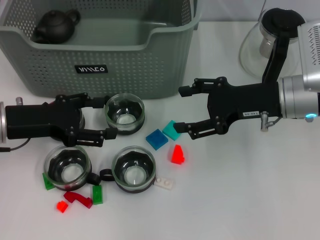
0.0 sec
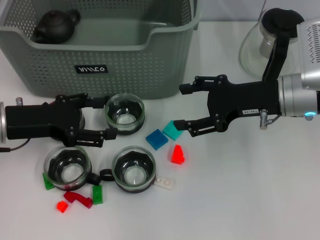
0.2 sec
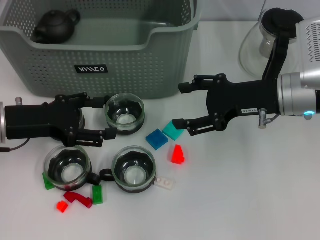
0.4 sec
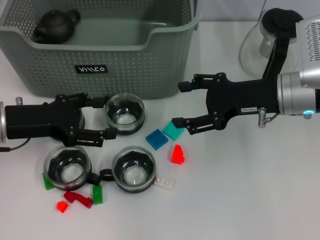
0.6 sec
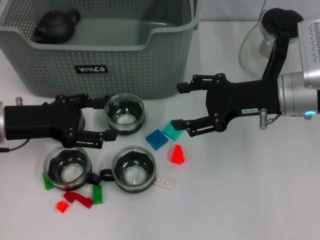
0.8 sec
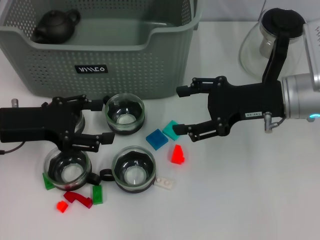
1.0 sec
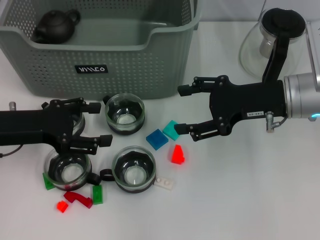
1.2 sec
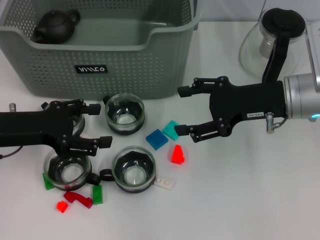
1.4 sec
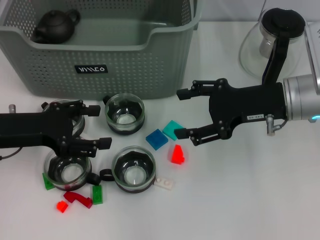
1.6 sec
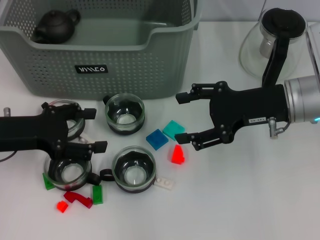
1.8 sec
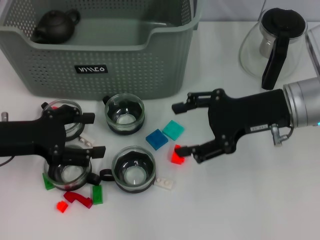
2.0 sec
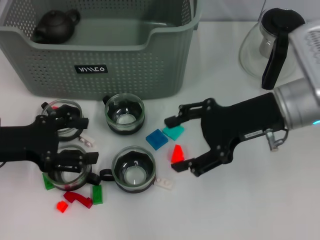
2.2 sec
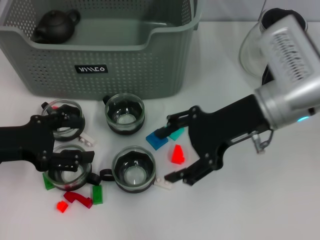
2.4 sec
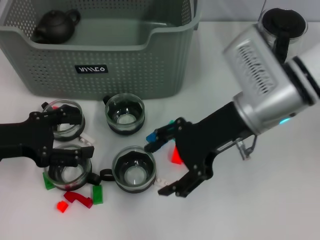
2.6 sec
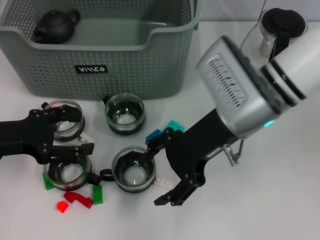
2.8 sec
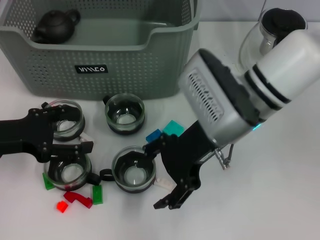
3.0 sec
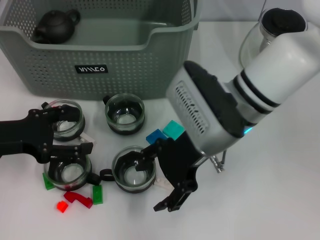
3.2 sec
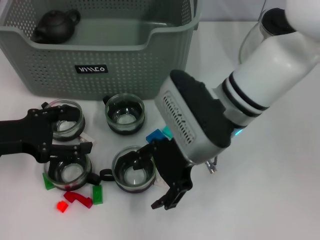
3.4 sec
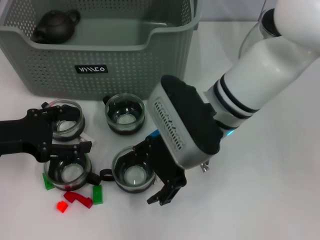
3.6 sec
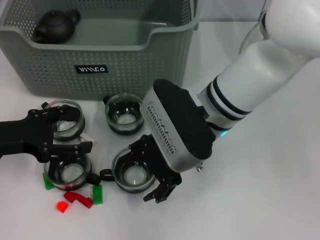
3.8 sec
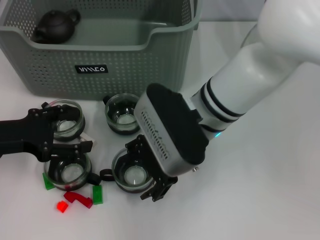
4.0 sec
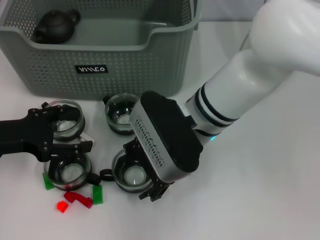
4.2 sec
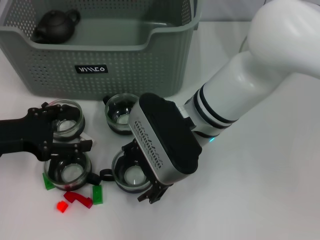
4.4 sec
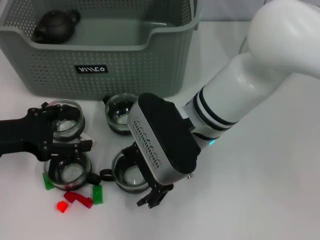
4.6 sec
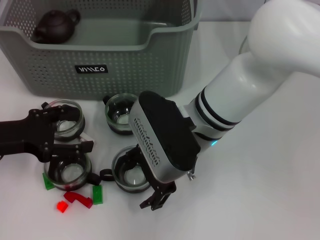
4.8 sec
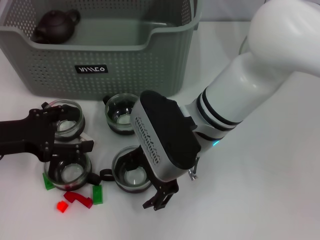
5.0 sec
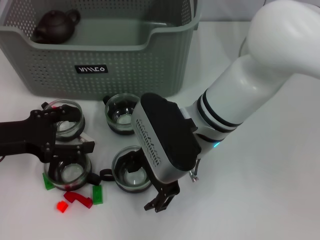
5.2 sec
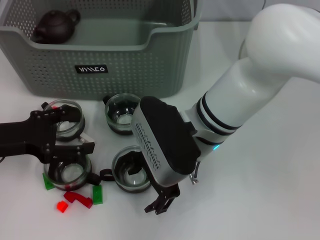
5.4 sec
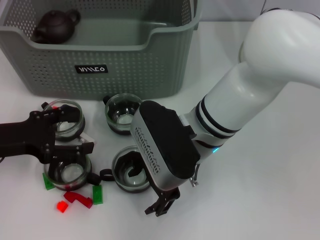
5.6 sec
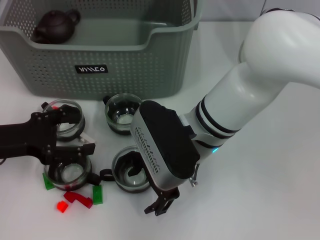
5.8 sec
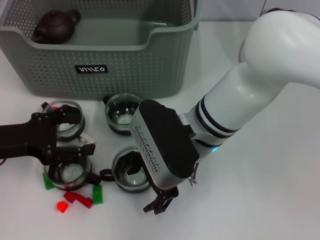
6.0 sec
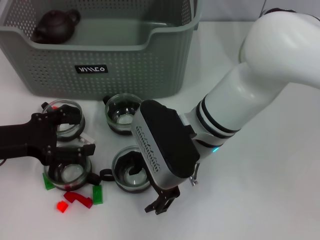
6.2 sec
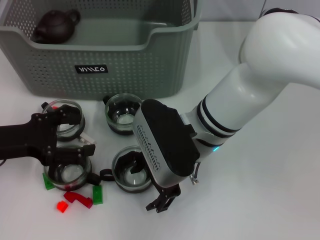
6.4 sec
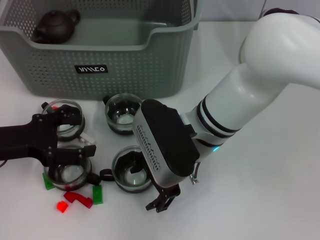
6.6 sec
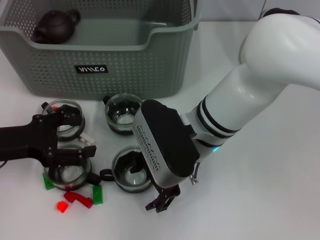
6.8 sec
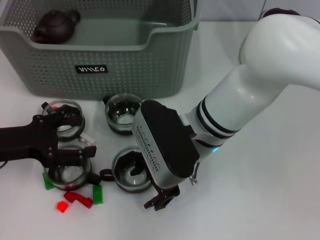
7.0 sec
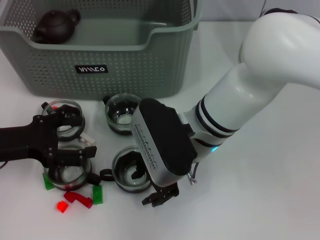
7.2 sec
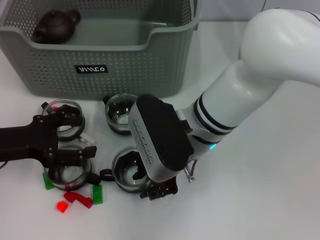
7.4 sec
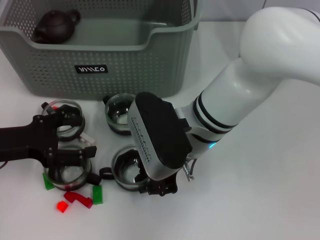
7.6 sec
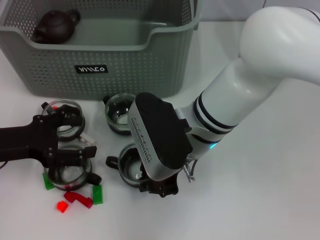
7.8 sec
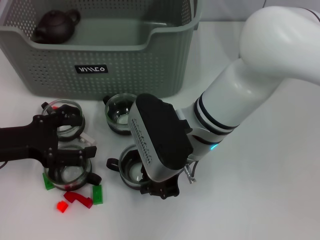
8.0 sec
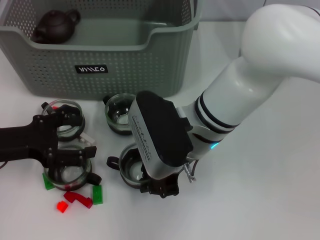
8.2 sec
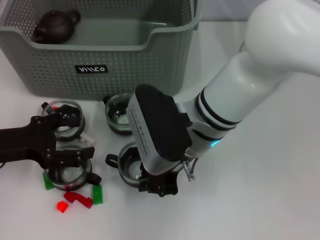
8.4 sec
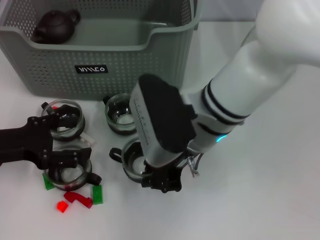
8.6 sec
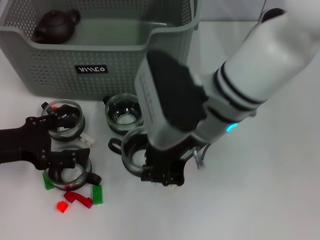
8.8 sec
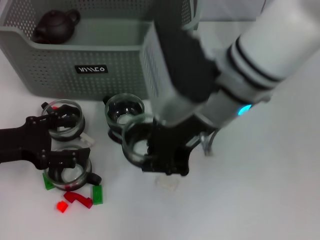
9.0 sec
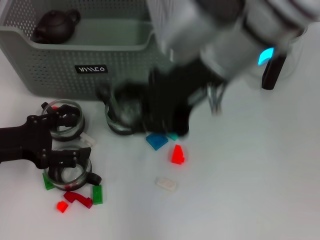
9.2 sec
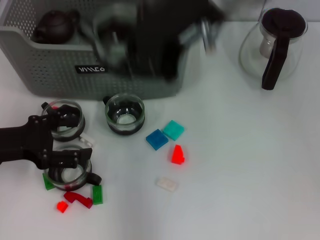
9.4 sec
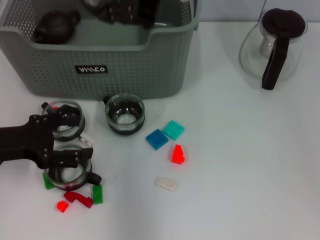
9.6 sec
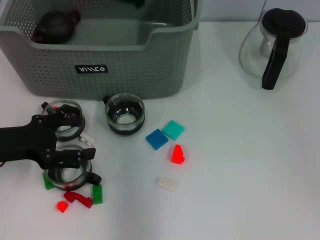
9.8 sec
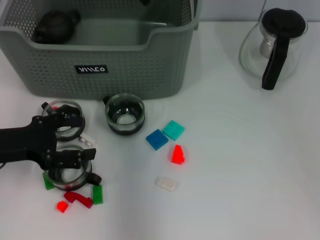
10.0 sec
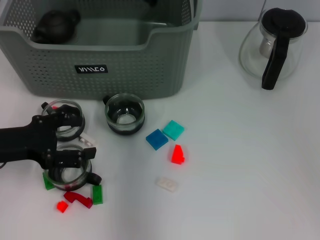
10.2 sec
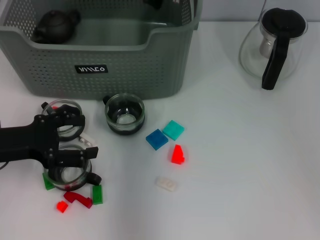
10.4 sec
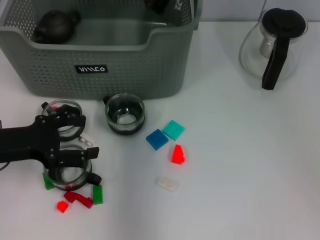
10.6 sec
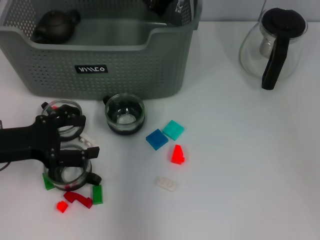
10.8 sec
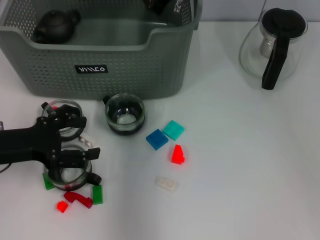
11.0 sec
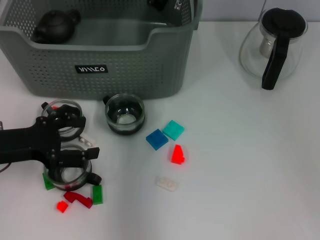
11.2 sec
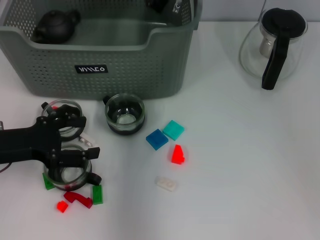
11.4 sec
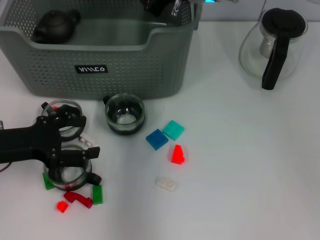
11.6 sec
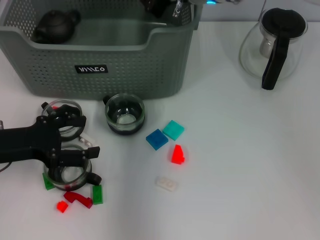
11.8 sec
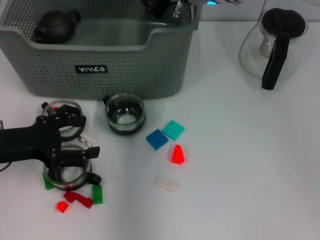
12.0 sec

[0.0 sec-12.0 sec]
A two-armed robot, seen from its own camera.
Task of the whole recording: pick up the teacup on the table and place it into the storage bin, pick up the block on the table and place it into the storage bin.
Step, 0.0 sec to 7.6 sec: Grasp the cup with right gripper.
0.0 sec to 1.6 sec: Both grippers stay put.
1.6 sec to 3.0 sec: The right gripper shifts some 10 cm to the left.
3.0 sec to 4.4 sec: The right gripper is displaced to the left by approximately 5 cm.
4.4 sec to 6.0 sec: There are only small adjustments of the grippers.
6.0 sec to 7.6 sec: The right gripper closes.
7.6 sec to 9.0 sec: The right gripper is displaced upward by about 10 cm.
9.0 sec to 10.4 sec: The right gripper shifts roughly 15 cm forward.
10.4 sec to 12.0 sec: The grippers stay close to where they were, moving slightly.

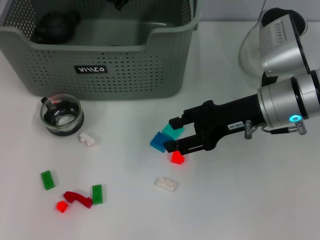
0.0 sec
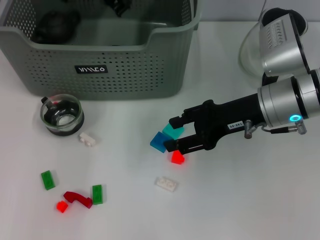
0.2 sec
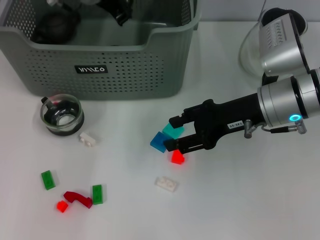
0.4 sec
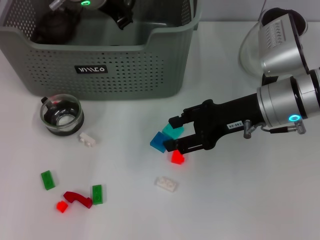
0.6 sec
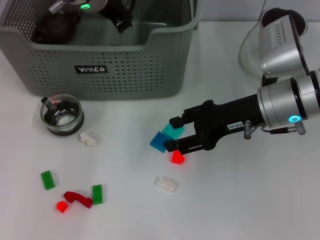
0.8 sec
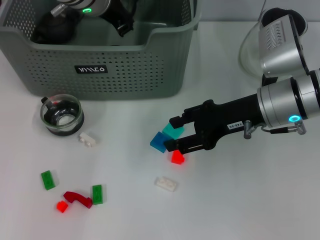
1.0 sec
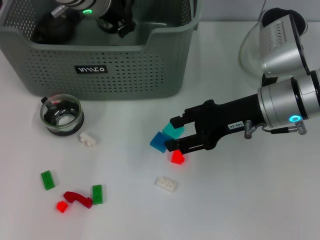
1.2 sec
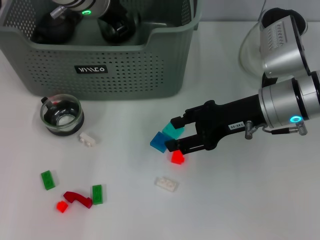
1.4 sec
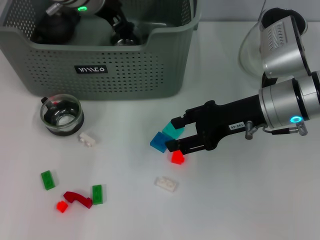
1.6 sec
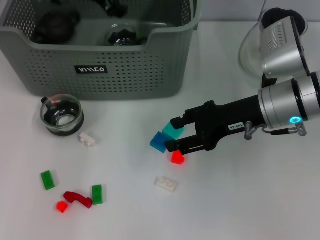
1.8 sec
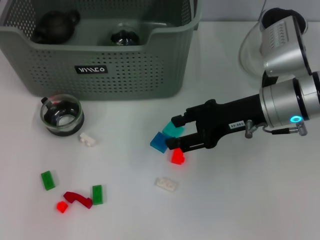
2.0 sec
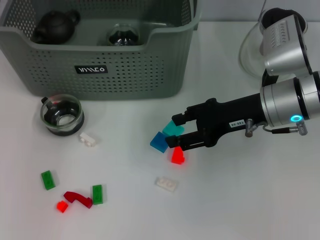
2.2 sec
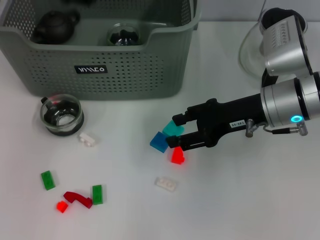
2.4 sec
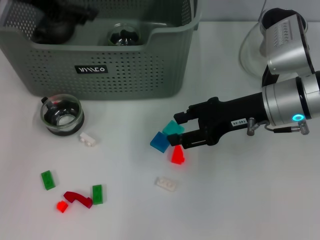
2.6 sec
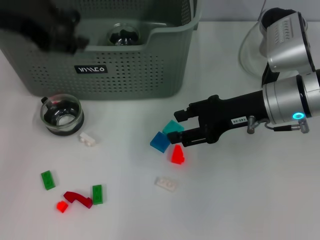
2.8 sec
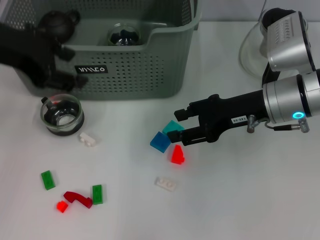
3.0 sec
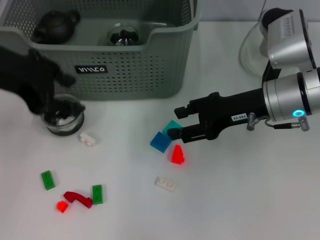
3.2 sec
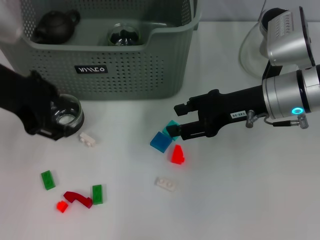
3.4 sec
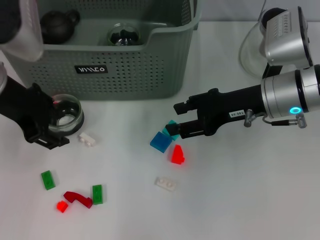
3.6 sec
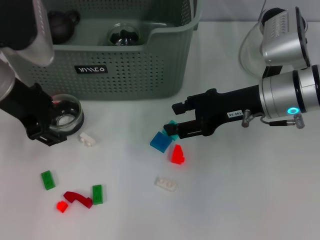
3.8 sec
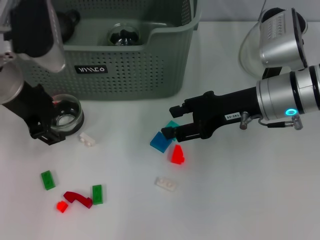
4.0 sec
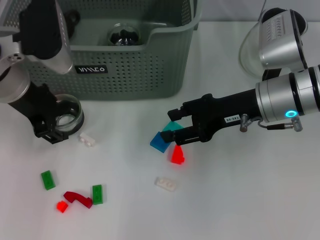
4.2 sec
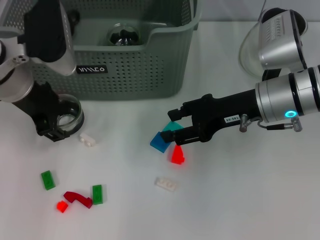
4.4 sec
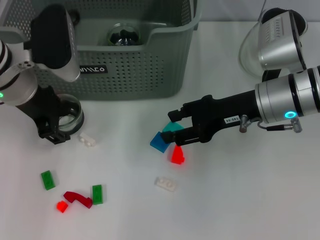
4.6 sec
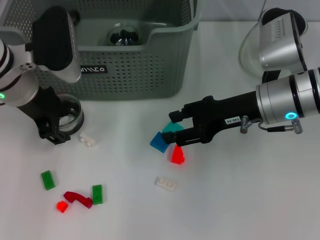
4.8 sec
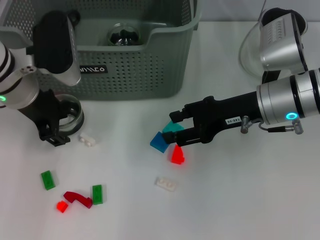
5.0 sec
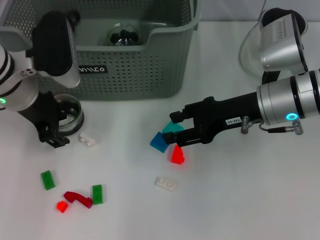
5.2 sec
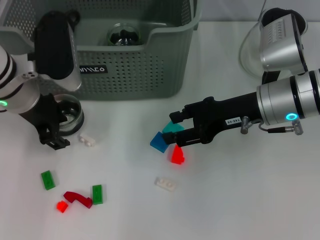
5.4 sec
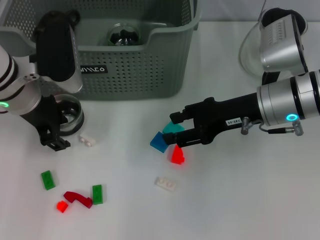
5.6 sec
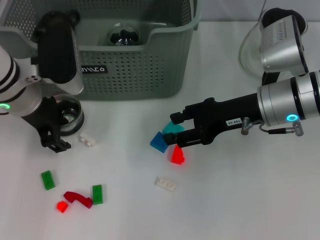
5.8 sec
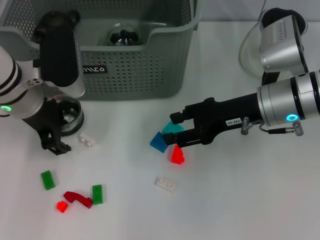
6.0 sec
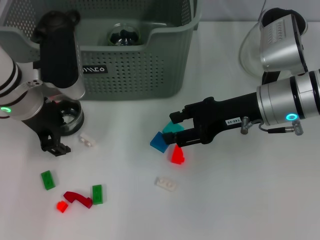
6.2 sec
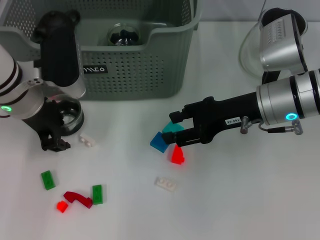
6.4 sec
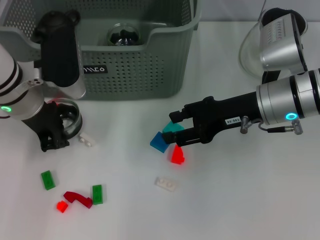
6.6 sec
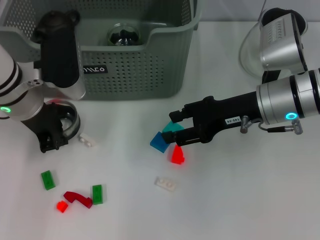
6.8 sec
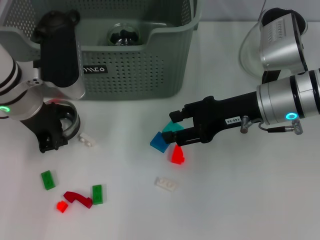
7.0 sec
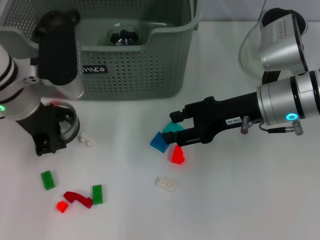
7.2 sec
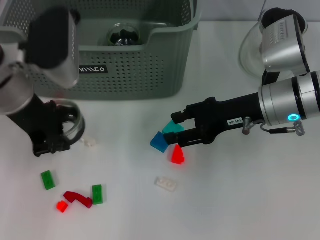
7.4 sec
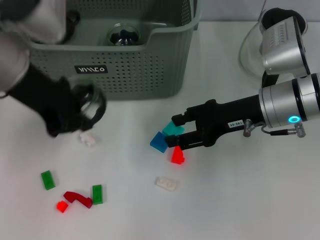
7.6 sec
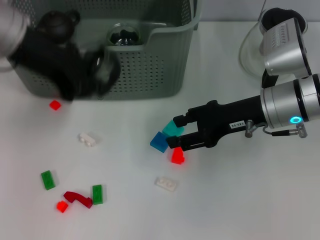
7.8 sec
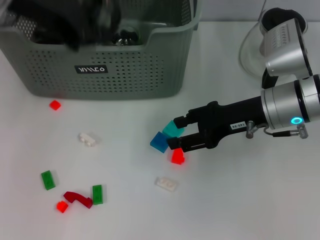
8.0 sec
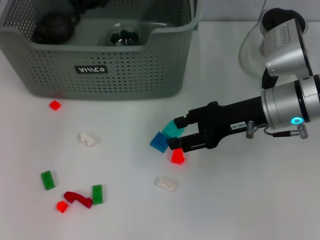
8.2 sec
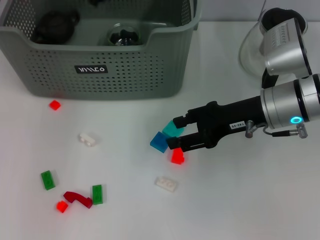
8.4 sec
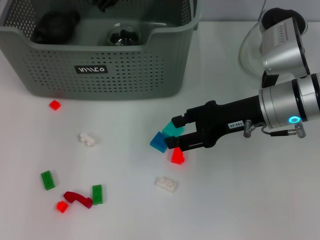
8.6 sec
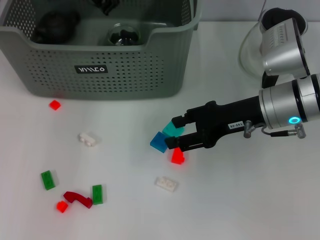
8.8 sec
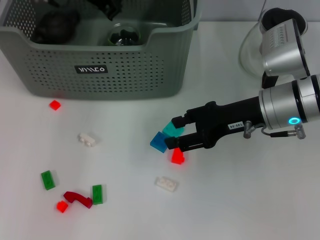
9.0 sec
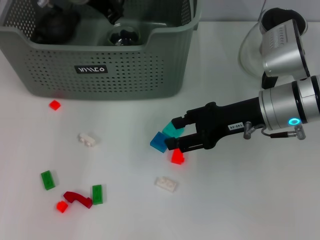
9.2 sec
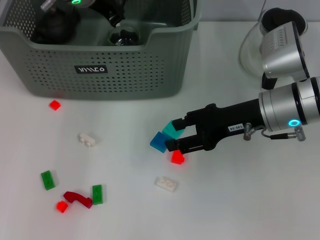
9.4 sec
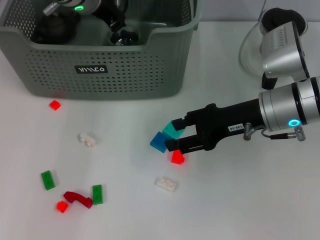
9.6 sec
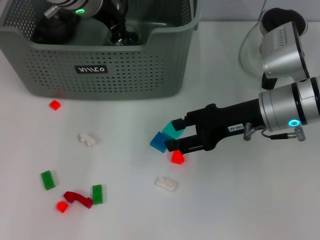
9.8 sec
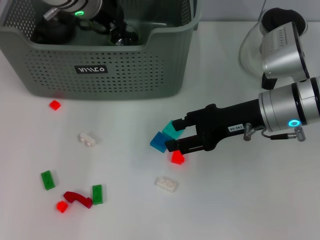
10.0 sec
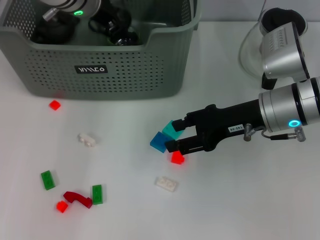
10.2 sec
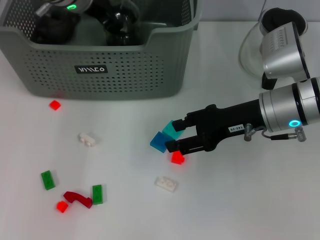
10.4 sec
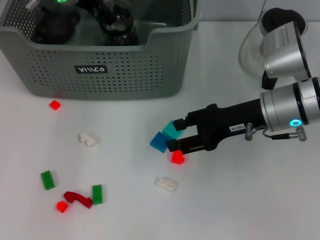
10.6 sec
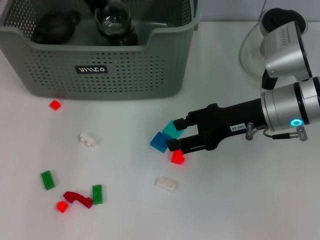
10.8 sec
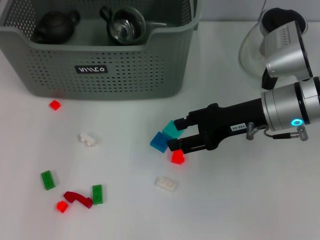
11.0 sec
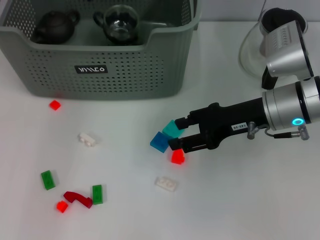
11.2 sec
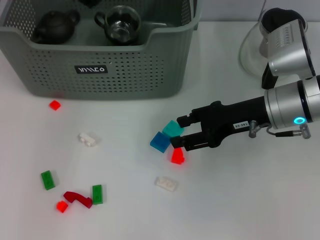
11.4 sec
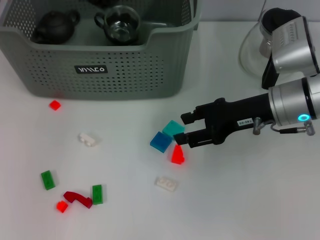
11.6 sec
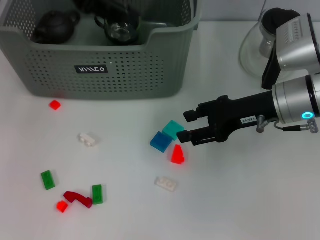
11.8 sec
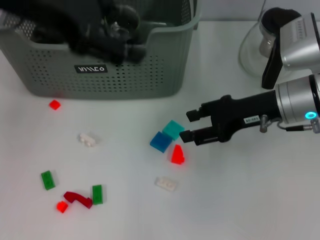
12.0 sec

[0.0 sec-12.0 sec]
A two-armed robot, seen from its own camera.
Task of the whole recording: pick up the teacup on the table and place it into the storage bin, pick up the block on the table and place it into the storage bin.
Step, 2.0 sec to 6.6 sec: Grasp the cup with left gripper.
Step, 6.8 sec to 11.2 sec: Place the cup in the storage box with left gripper.
0.0 sec to 1.6 sec: The grippers make only small movements.
1.6 sec to 3.0 sec: The left gripper shifts roughly 20 cm backward, to the left and upward.
3.0 sec to 4.4 sec: The left gripper shifts roughly 10 cm downward.
4.4 sec to 6.0 sec: The grippers make only small movements.
6.0 sec to 7.6 sec: The left gripper heads upward, covering approximately 10 cm, and closes up.
7.6 sec to 9.0 sec: The left gripper heads forward, covering about 15 cm.
9.0 sec to 10.4 sec: The left gripper opens.
10.4 sec to 12.0 sec: The left gripper shifts approximately 20 cm backward and upward, and opens its fingers.
